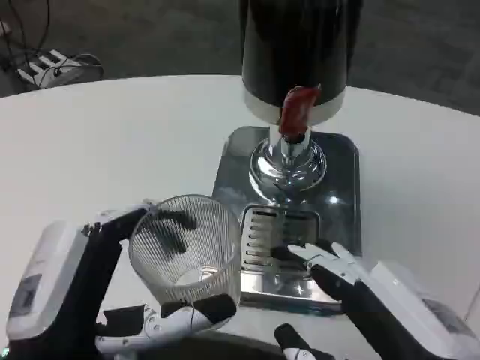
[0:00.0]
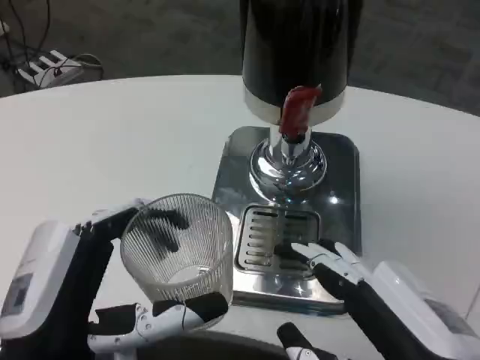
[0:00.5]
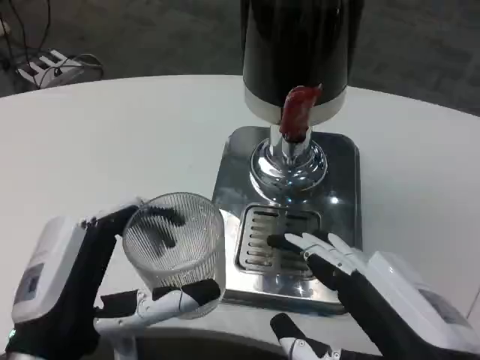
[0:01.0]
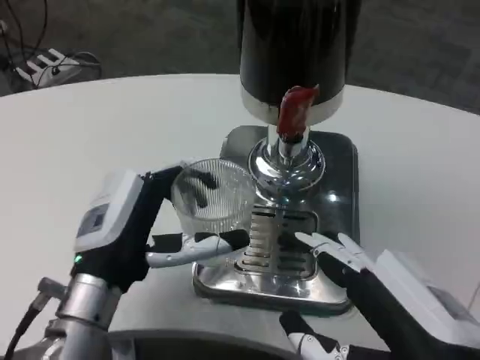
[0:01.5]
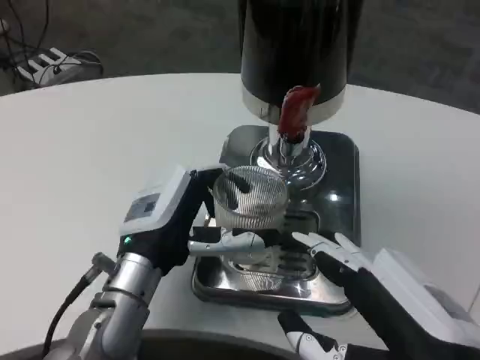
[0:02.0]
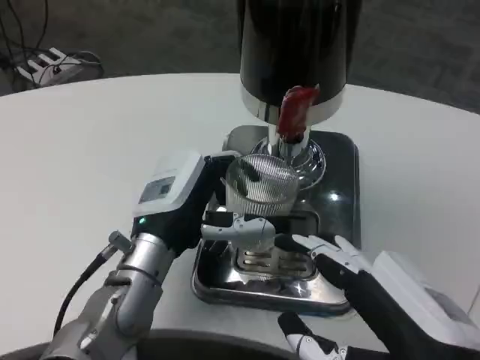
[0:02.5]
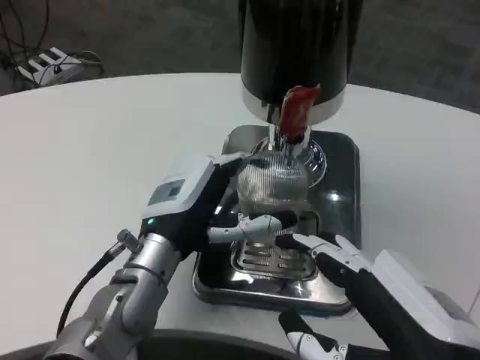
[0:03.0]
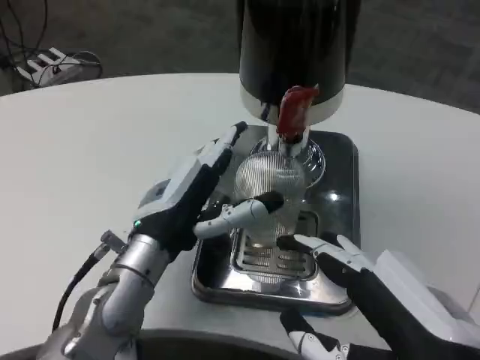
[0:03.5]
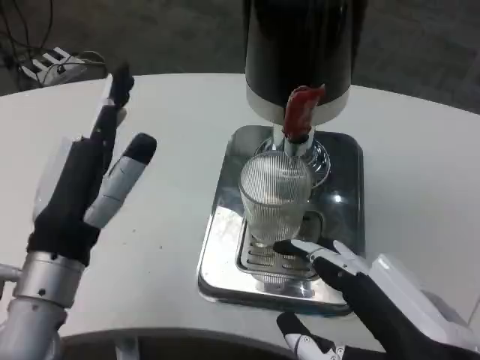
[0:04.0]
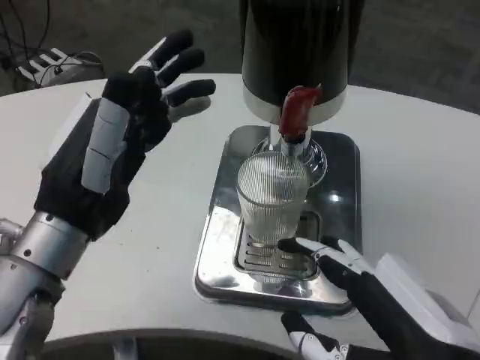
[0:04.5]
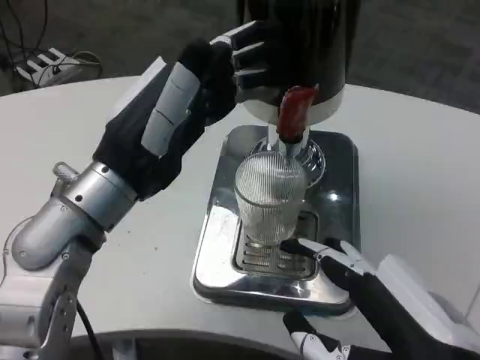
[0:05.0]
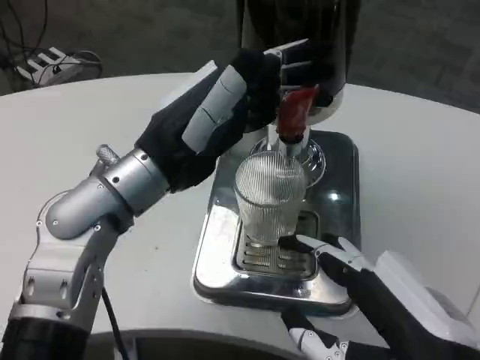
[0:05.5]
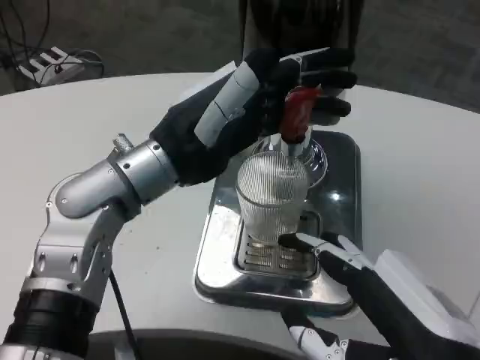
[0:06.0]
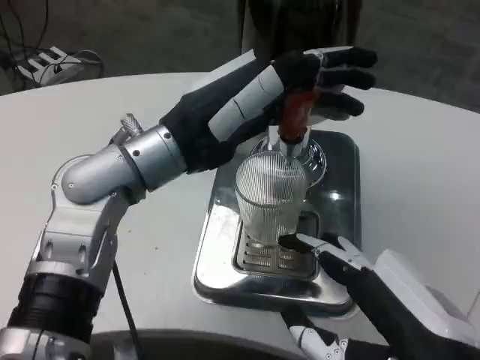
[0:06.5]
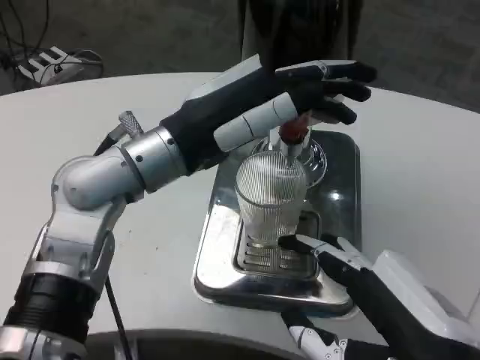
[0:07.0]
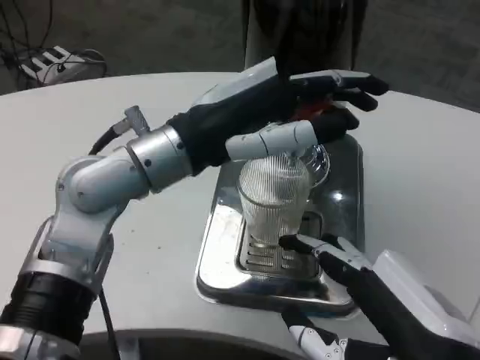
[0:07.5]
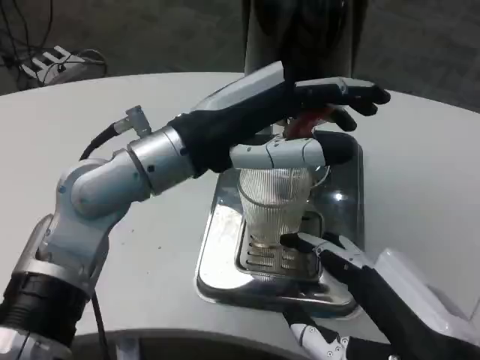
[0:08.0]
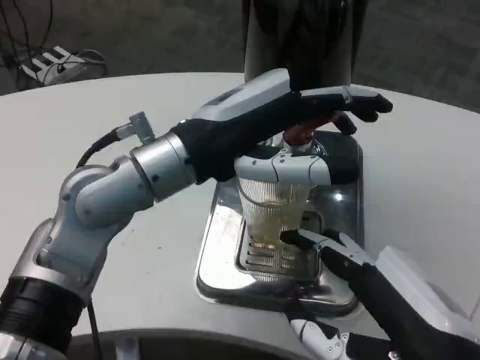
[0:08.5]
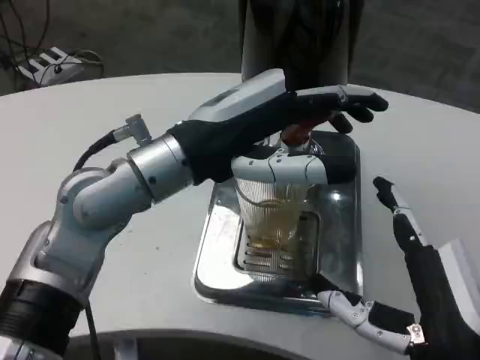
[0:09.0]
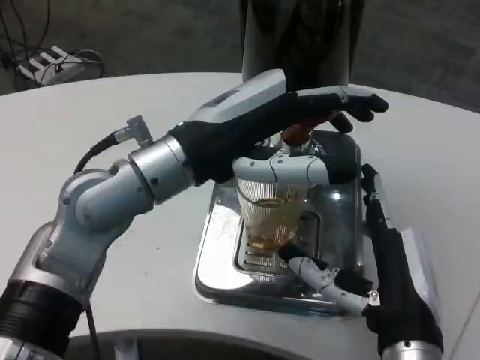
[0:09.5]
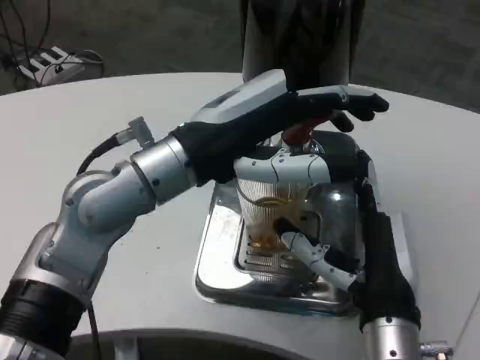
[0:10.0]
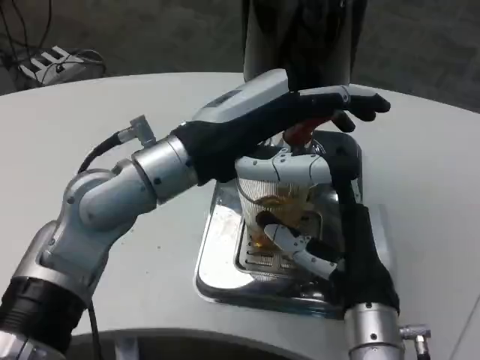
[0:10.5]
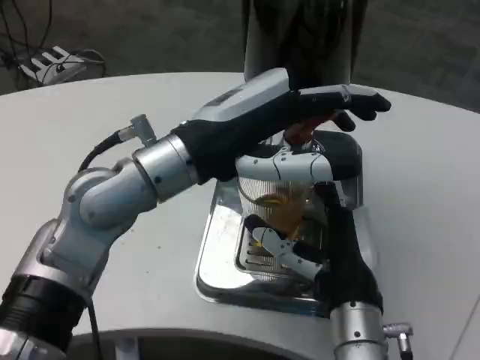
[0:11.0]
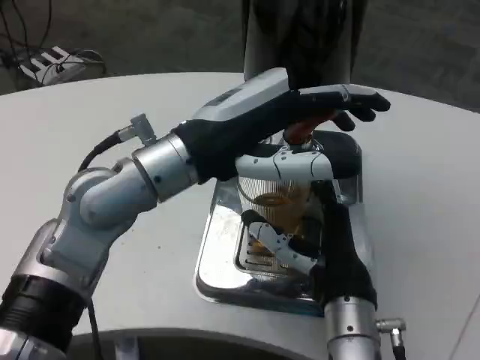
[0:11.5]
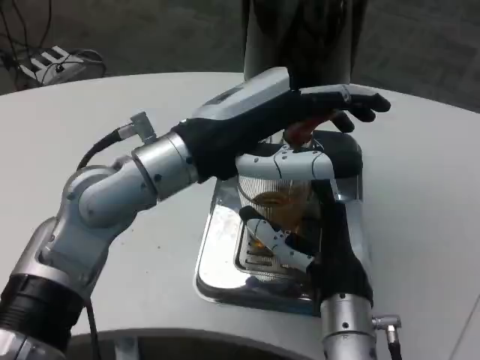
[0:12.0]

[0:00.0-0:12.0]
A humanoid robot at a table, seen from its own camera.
Task of the whole recording: Grasp the cup under the faucet to collect the drink, then remove the cup.
0.0 to 2.0 s: The left hand is displaced forward by some 15 cm.
2.0 to 4.0 s: The left hand heads backward, covering roughly 5 cm.
4.0 to 6.0 s: The left hand goes about 10 cm upward and forward.
8.0 to 10.0 s: The right hand heads forward, downward and to the left, covering about 15 cm.
10.0 to 12.0 s: There are only small adjustments of the hands.

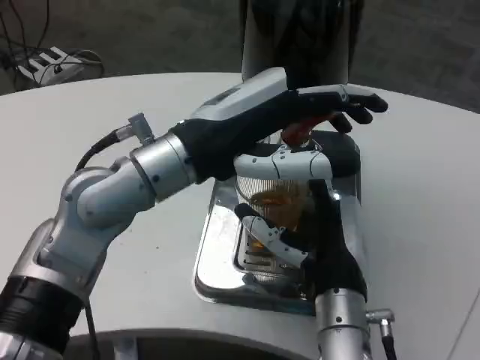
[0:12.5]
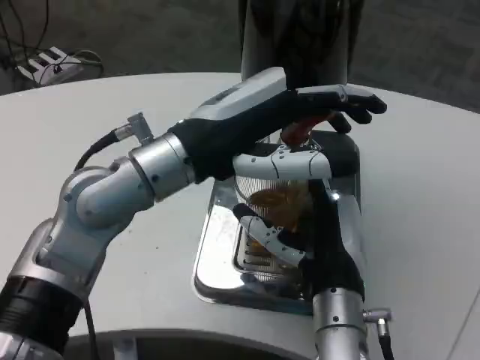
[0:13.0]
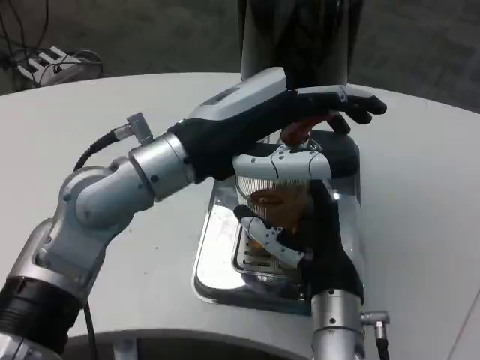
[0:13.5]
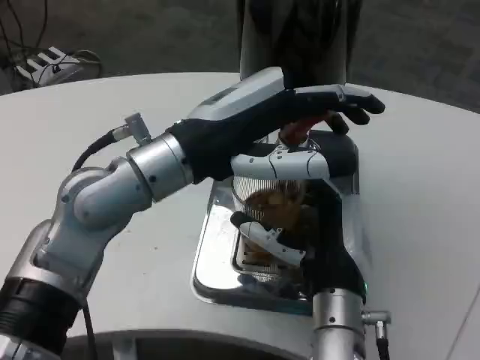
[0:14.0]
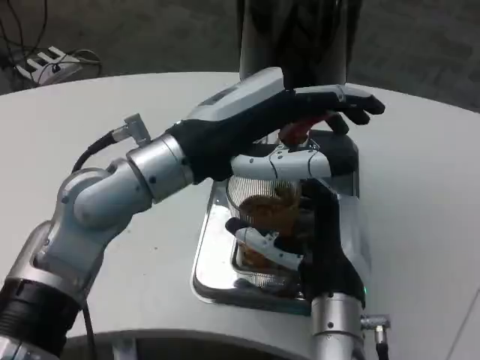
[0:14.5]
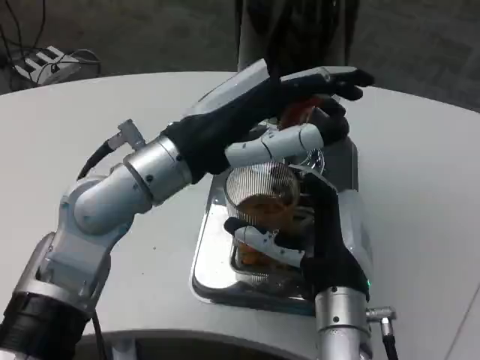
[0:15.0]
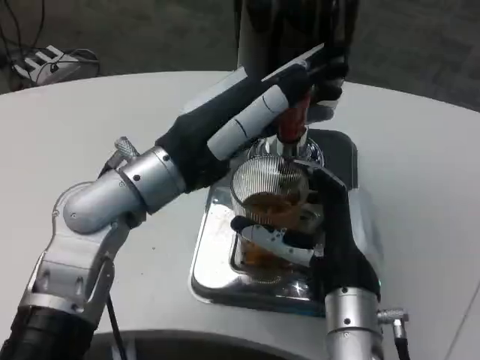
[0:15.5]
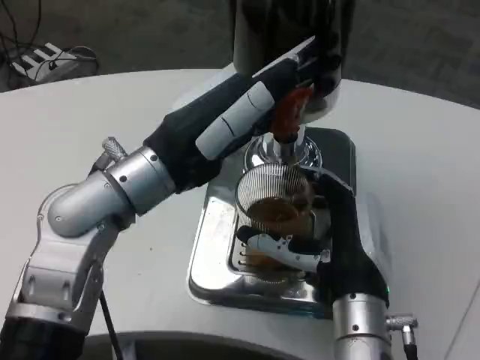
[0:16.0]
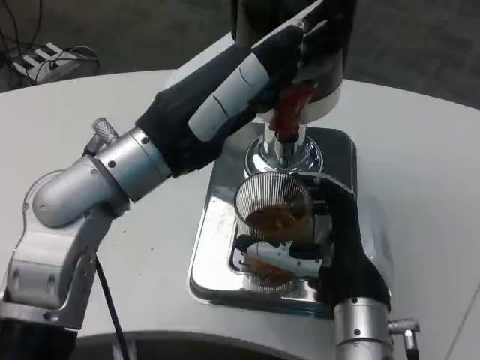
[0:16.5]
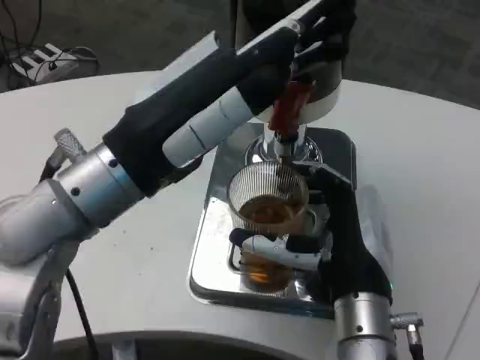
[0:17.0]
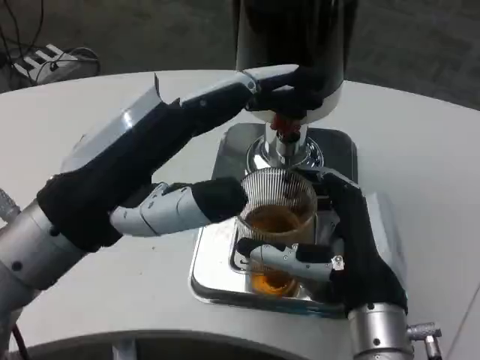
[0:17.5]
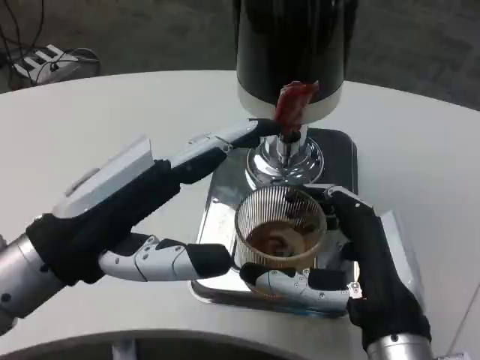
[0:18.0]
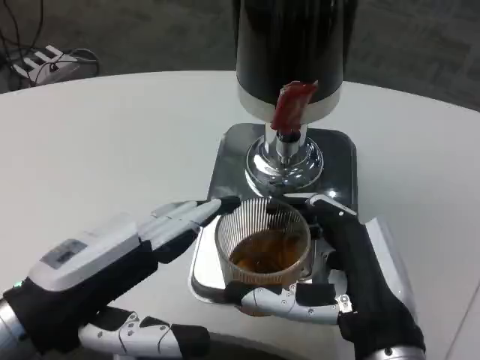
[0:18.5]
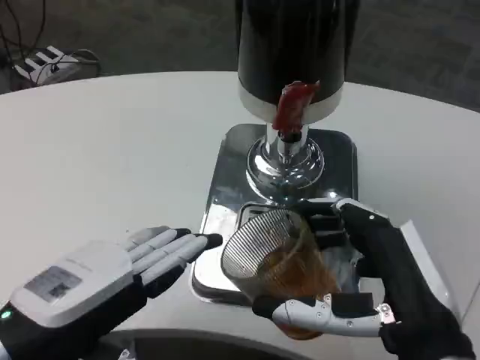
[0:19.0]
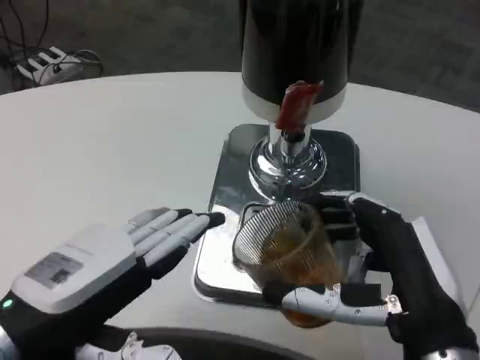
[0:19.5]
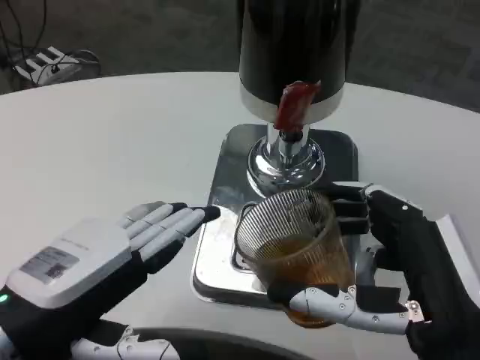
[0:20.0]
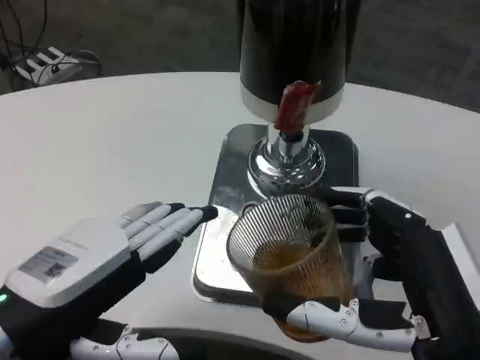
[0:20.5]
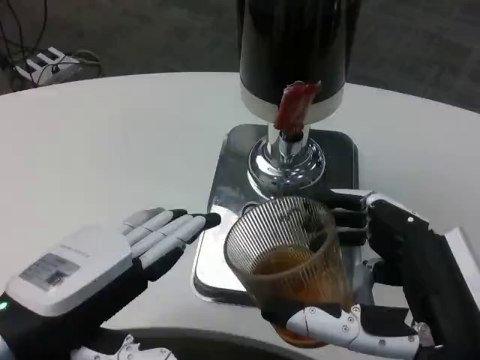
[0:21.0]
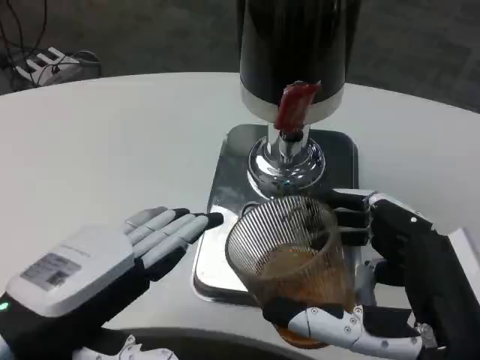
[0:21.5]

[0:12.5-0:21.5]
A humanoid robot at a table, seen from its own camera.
Task of the whole recording: Grasp the cup under the faucet to collect the drink, then remove the cup.
12.5 to 14.5 s: The hands make only small movements.
14.5 to 17.0 s: The left hand heads backward, covering about 5 cm.
17.0 to 19.5 s: The right hand heads backward and to the right, covering about 10 cm. The left hand travels downward, backward and to the left by approximately 15 cm.
19.5 to 21.5 s: The right hand shifts by approximately 5 cm.

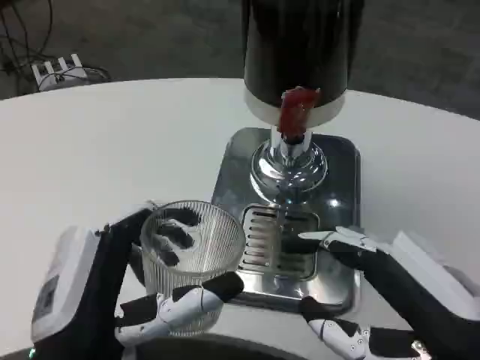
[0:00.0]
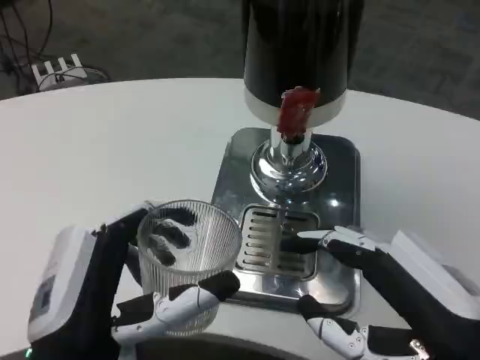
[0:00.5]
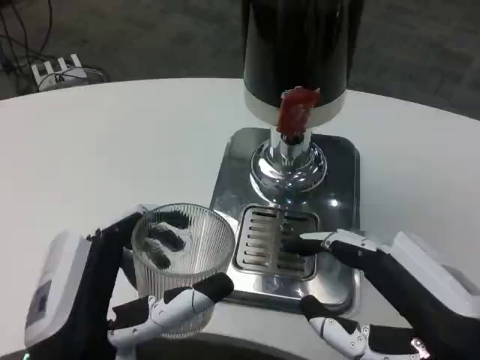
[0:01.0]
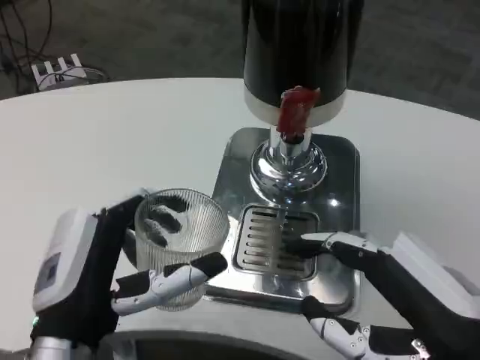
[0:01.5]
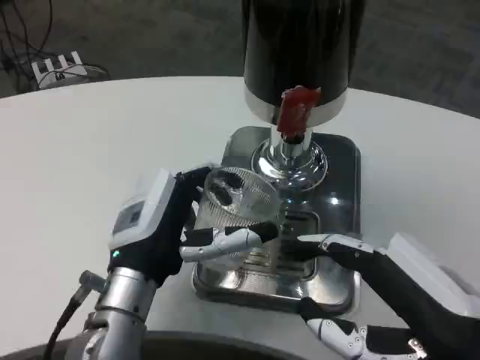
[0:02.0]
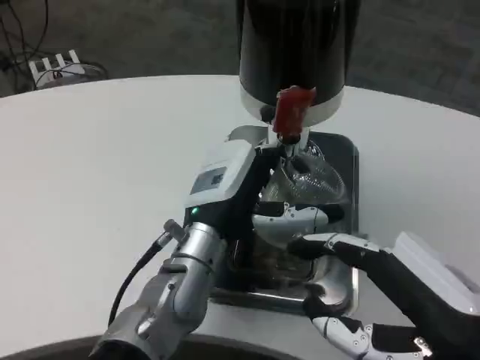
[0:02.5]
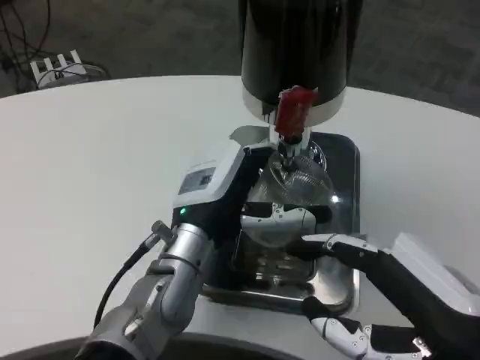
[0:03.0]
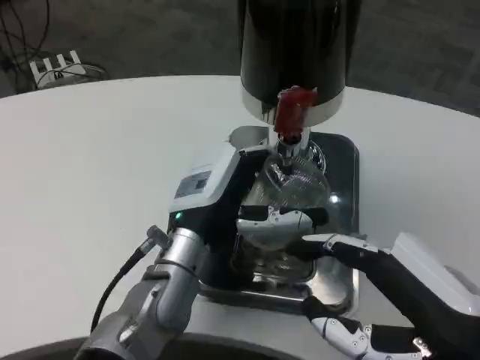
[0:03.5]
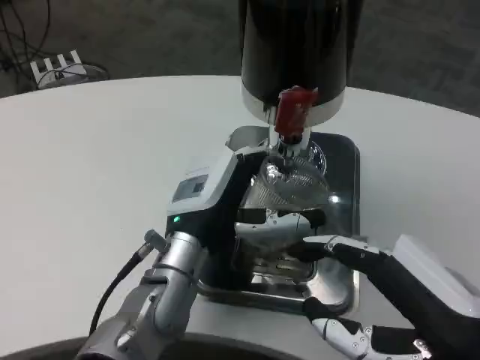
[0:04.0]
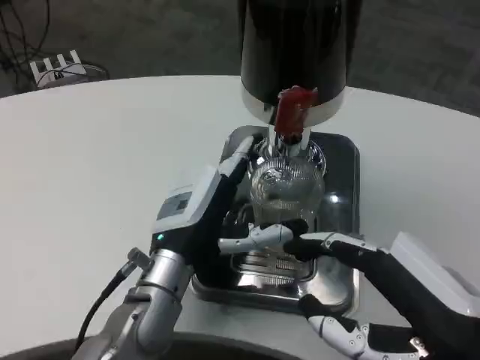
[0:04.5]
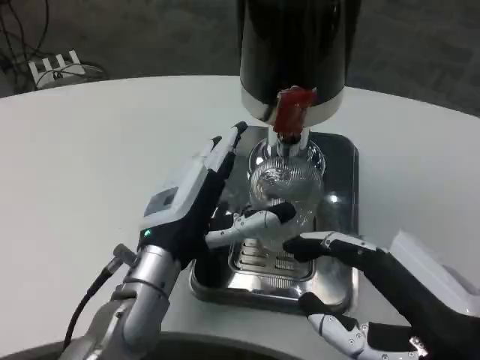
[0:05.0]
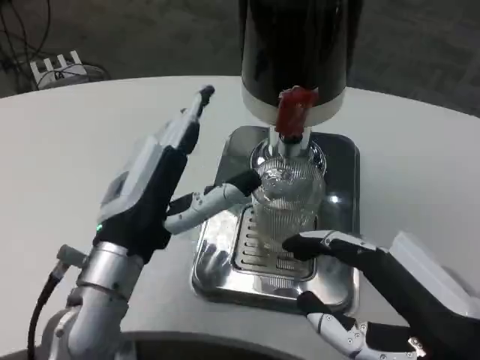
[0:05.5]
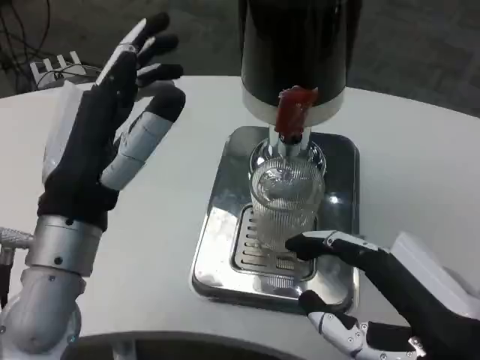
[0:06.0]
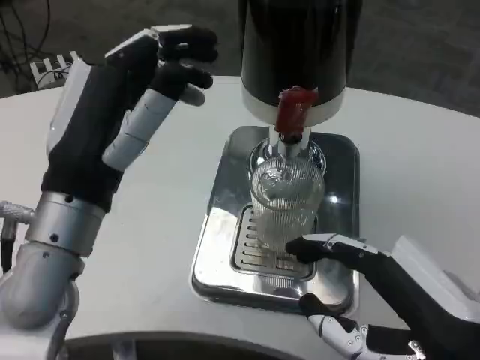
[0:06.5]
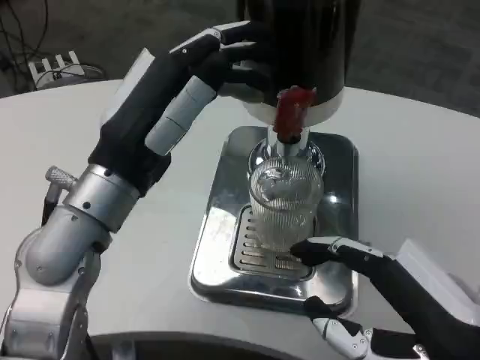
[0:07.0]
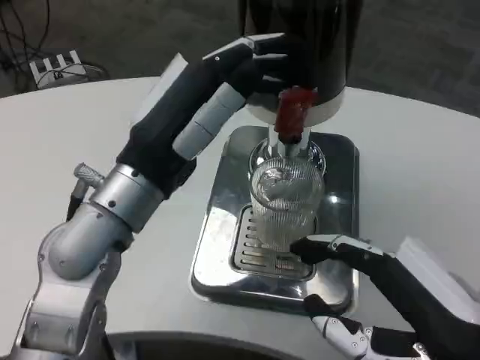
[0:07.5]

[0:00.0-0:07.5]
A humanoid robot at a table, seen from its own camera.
Task of the whole recording: Grasp the cup under the faucet to collect the drink, then remove the cup.
0.0 to 2.0 s: The left hand shifts about 15 cm forward.
2.0 to 4.0 s: The left hand ends up about 5 cm from where it was.
4.0 to 5.5 s: The left hand goes roughly 5 cm to the left and backward.
5.5 to 7.5 s: The left hand moves upward, some 5 cm.
